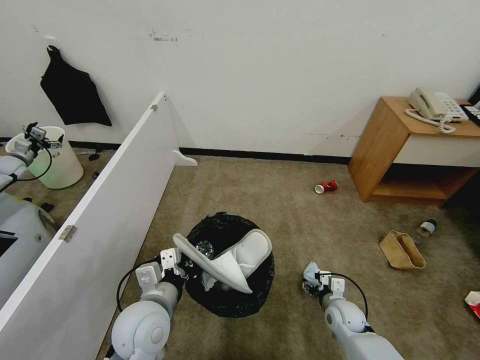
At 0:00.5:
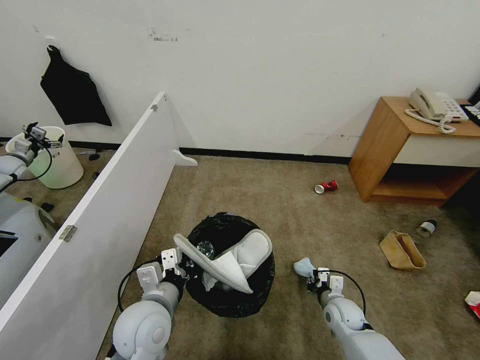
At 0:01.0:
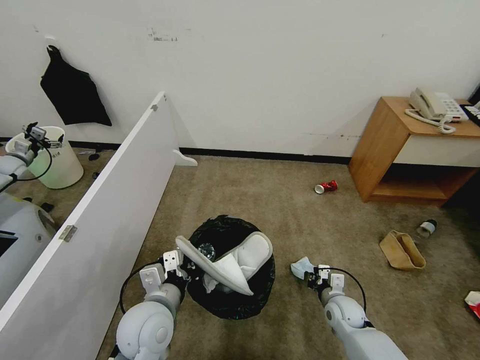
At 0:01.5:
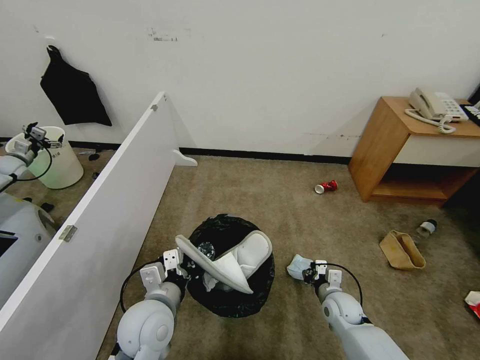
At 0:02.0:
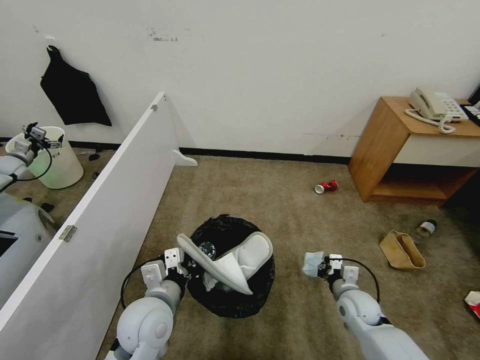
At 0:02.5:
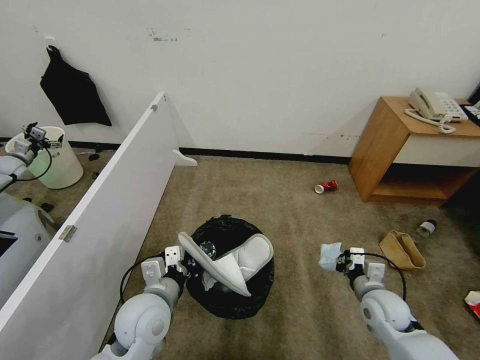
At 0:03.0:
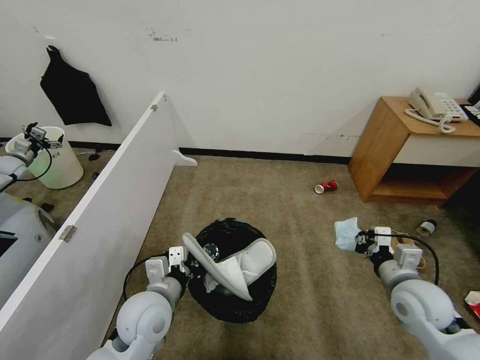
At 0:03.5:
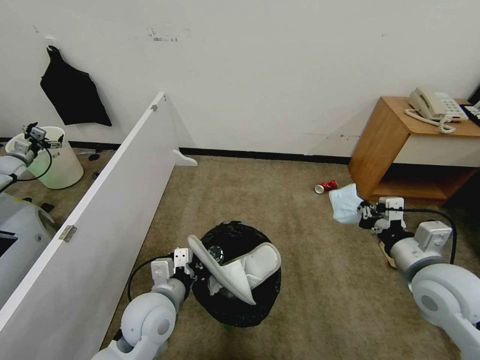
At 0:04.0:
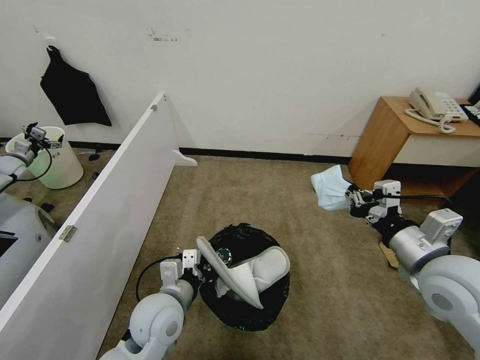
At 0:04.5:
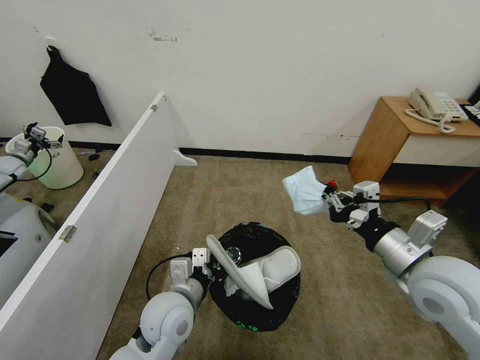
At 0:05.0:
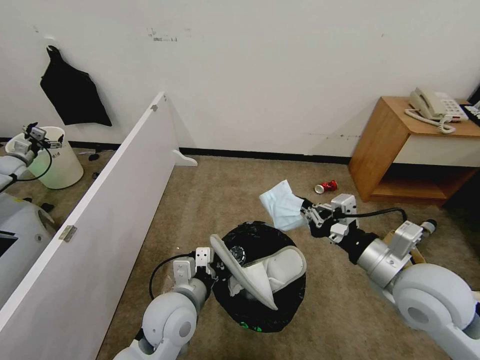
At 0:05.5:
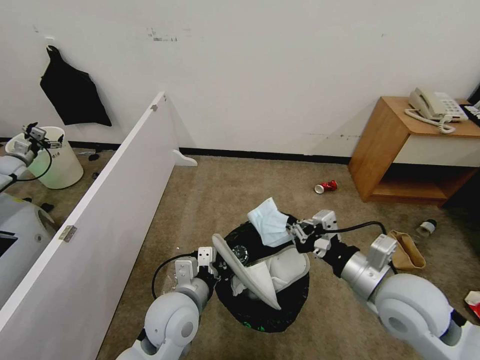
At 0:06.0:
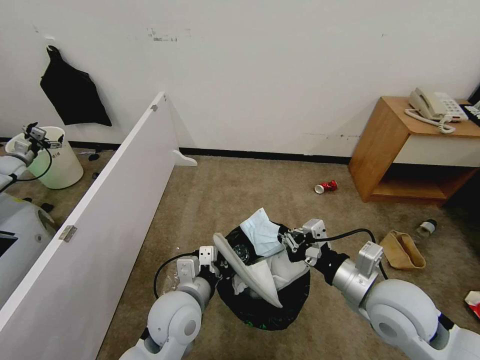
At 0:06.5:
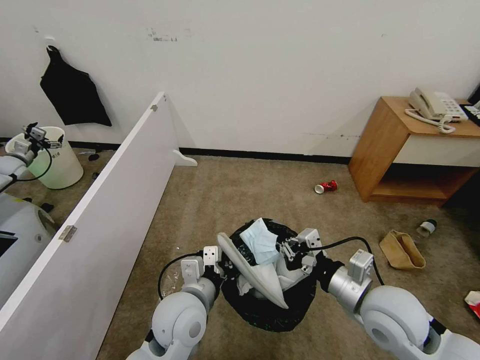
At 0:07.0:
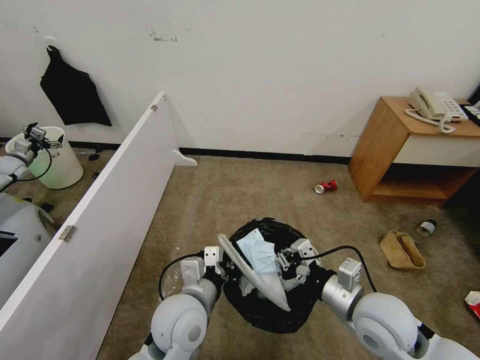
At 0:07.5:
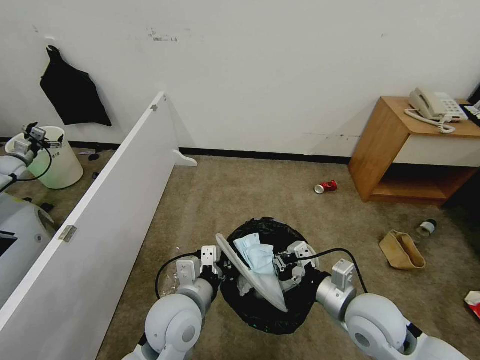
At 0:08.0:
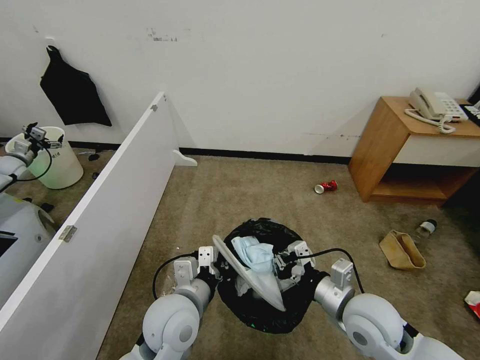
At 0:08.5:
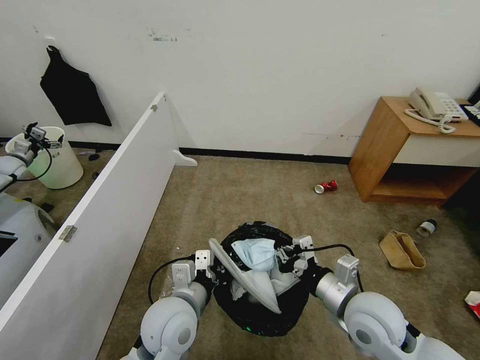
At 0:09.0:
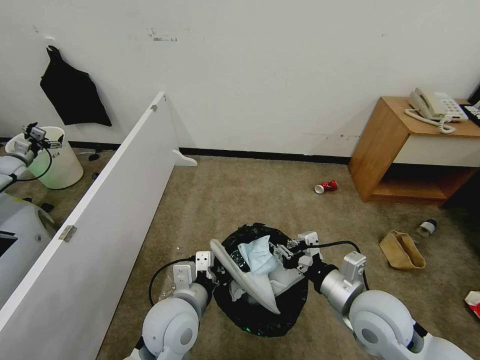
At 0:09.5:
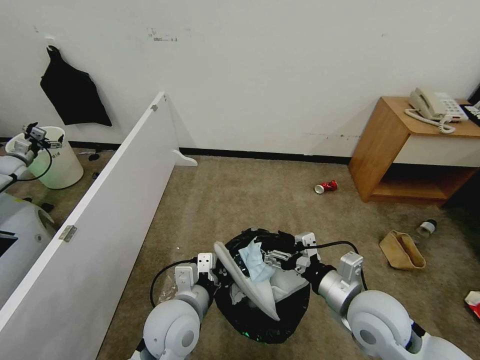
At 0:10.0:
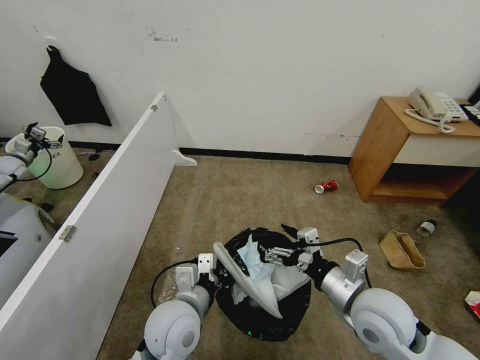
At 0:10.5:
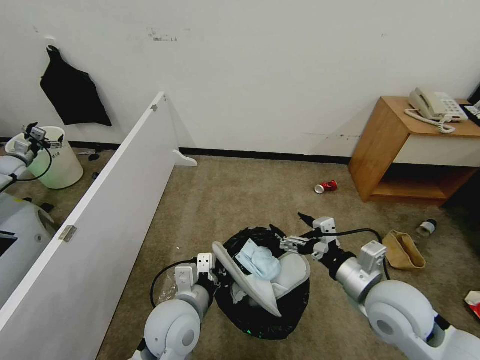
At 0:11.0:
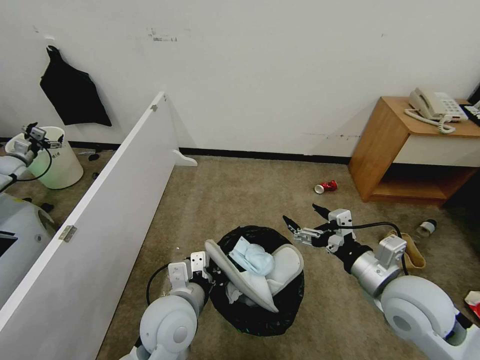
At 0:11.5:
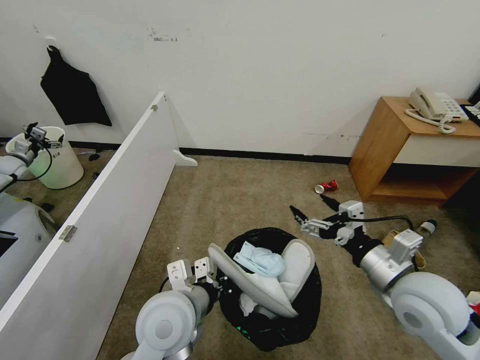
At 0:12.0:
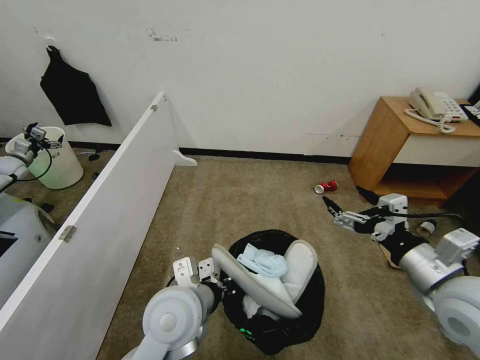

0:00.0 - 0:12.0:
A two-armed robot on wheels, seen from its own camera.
Task of the whole recording: Pick up the trash bin, then pick up the garbage from the floor and place it into the trash bin.
0:00.0 - 0:02.0: The right gripper ends up some 5 cm from where it was, and closes.
0:02.0 - 0:04.0: The right gripper goes roughly 30 cm upward.
0:04.0 - 0:06.0: The right gripper is displaced to the left and downward by about 10 cm.
0:06.0 - 0:08.0: The right gripper moves downward, roughly 5 cm.
0:08.0 - 0:10.0: The right gripper opens up.
0:10.0 - 0:12.0: The right gripper moves to the right and upward, approximately 15 cm, while the left gripper shifts some 5 cm upward.

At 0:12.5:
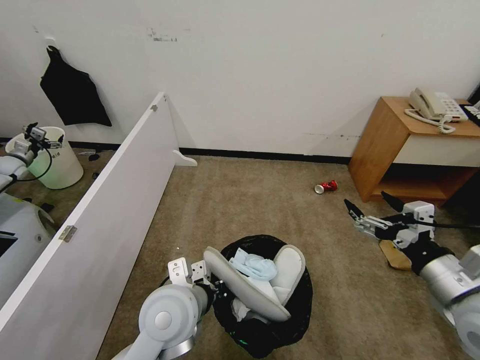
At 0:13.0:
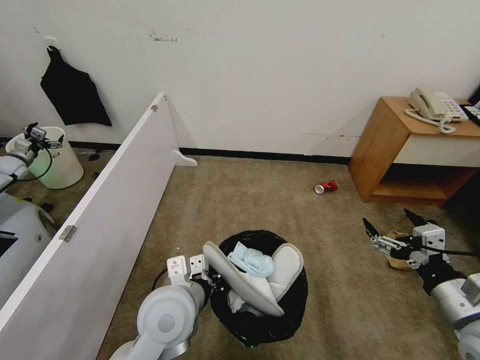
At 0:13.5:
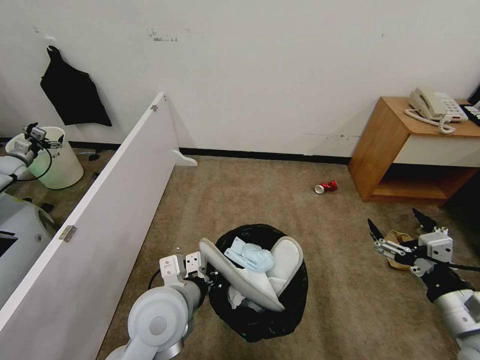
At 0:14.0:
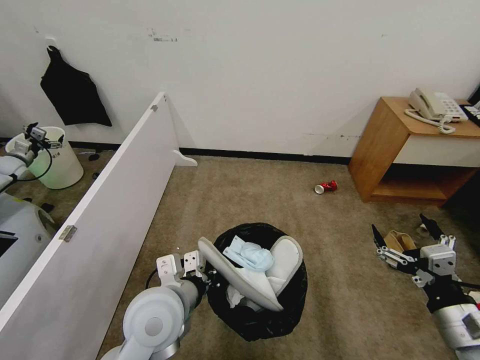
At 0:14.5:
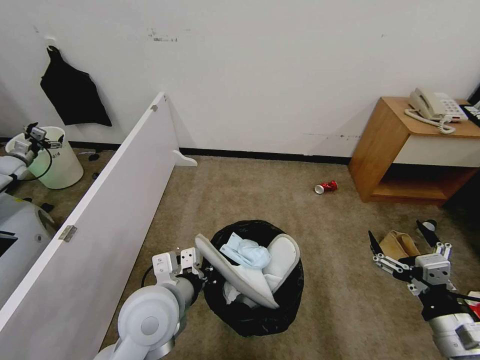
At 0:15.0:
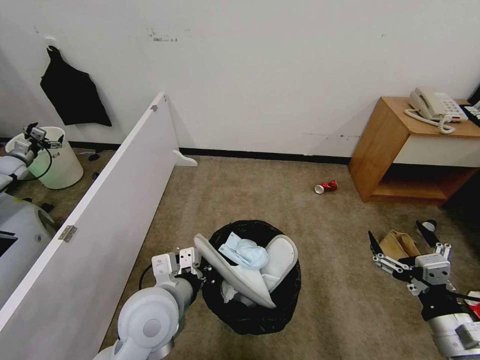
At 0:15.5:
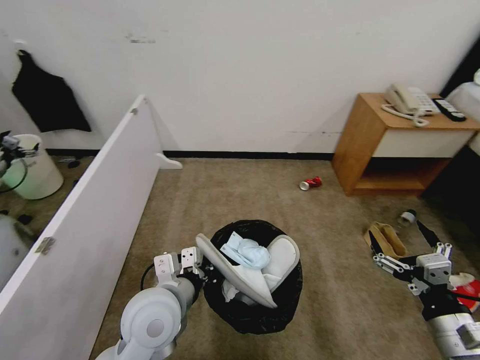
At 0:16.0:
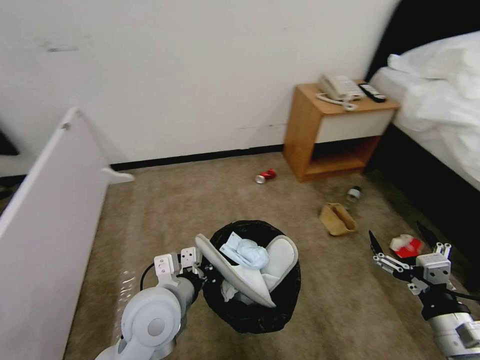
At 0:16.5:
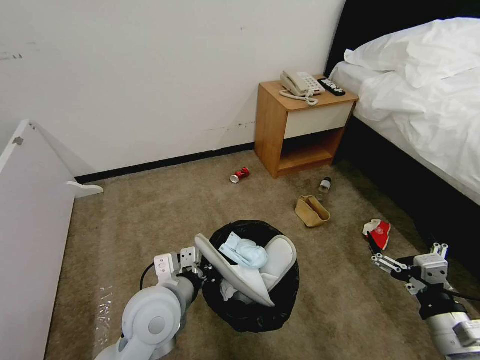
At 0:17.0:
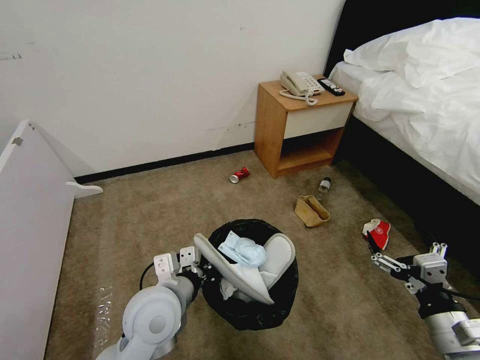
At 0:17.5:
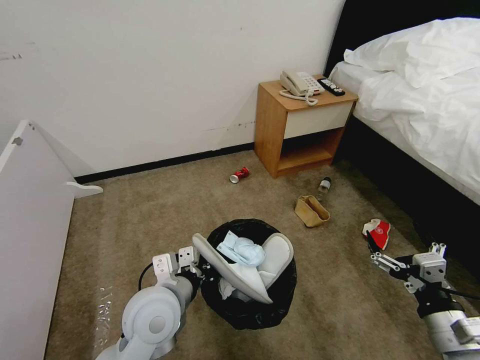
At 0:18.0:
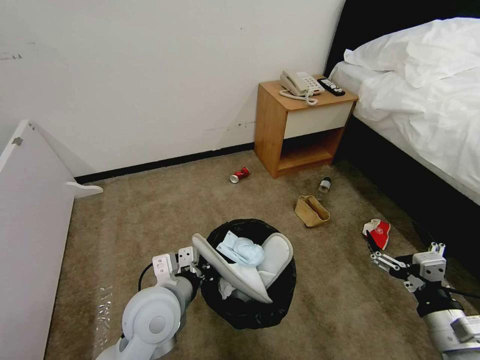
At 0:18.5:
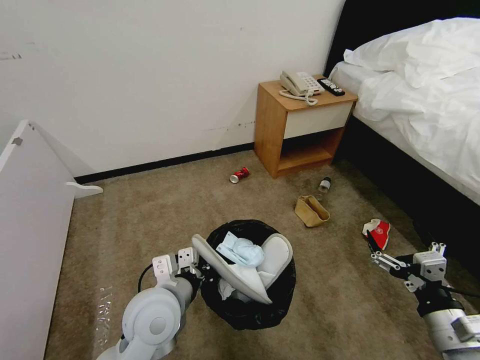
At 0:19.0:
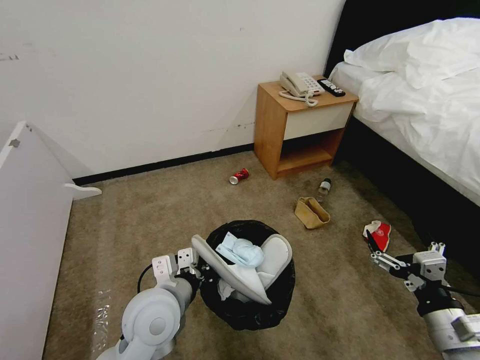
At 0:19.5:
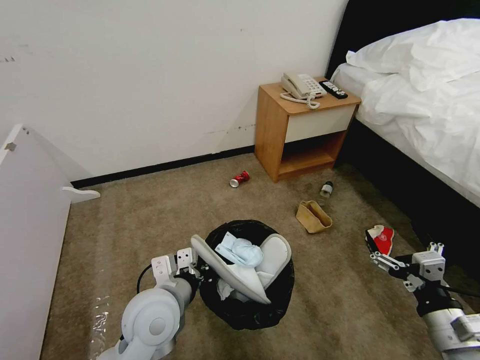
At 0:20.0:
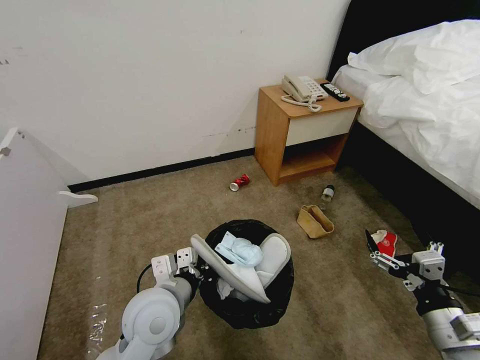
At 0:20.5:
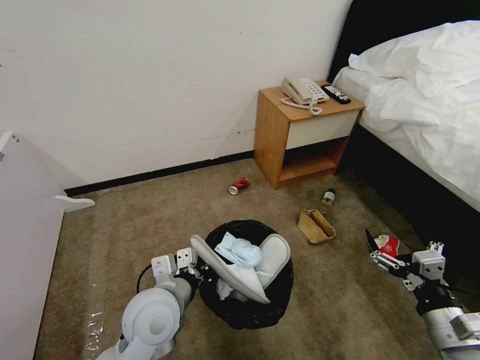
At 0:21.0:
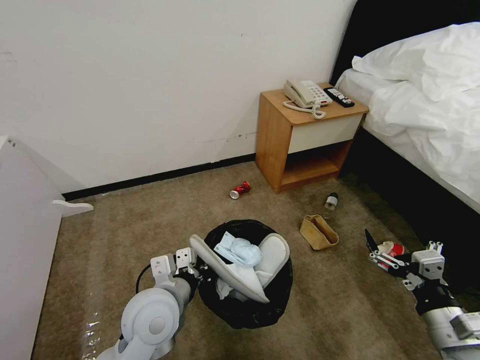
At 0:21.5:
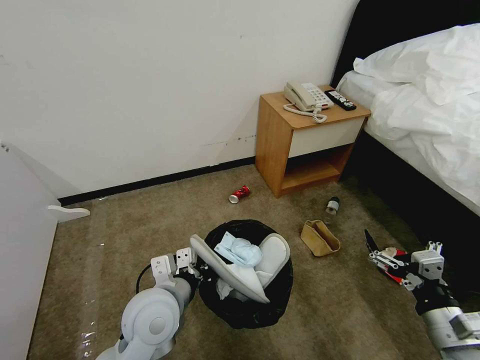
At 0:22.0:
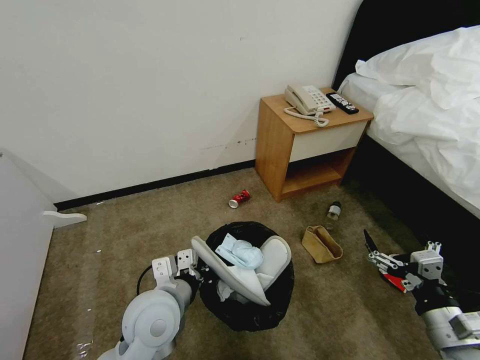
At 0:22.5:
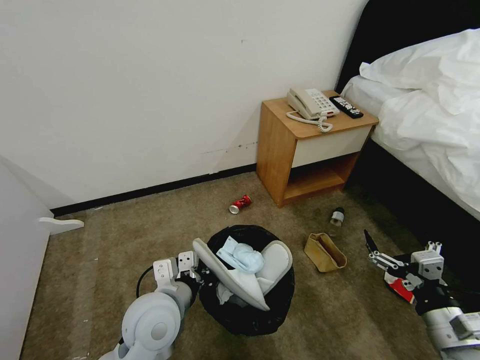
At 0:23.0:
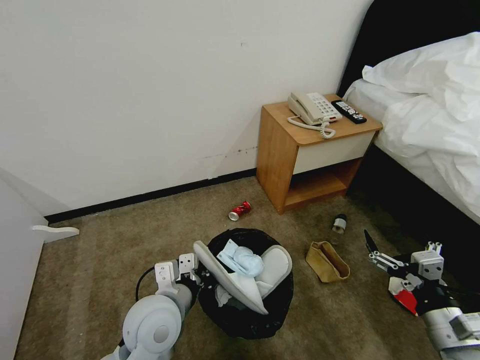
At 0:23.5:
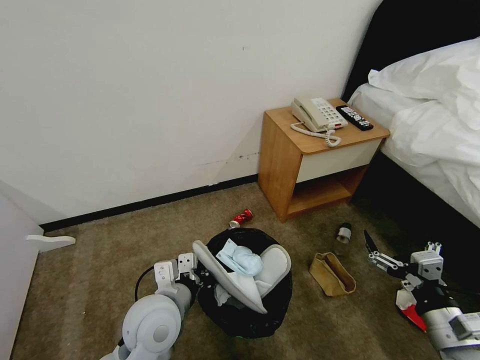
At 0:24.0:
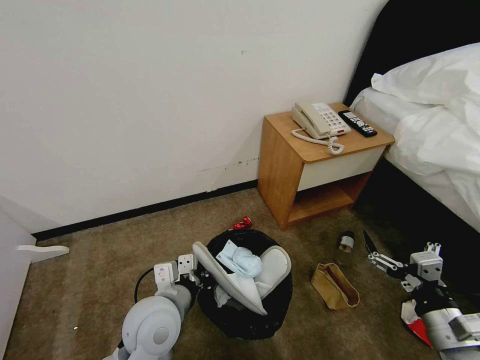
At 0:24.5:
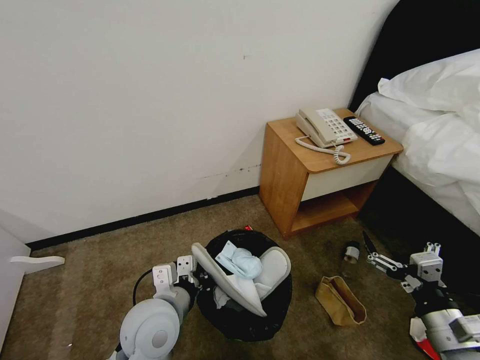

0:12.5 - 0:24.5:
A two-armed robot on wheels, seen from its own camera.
Task of the whole recording: Pick up the trash bin, then pick up the garbage from the floor and place it into the trash bin.
0:12.5 - 0:14.5: The right gripper shifts some 10 cm downward and backward.
0:16.5 - 0:20.5: Both grippers stay about where they are.

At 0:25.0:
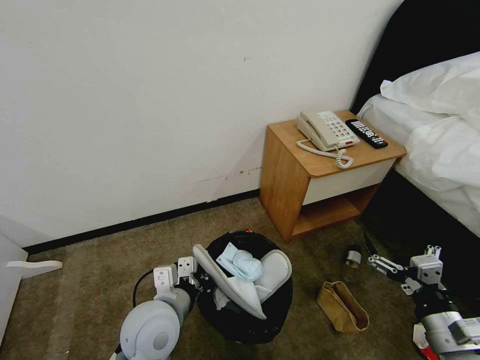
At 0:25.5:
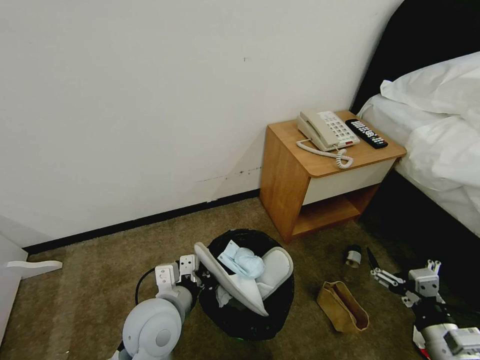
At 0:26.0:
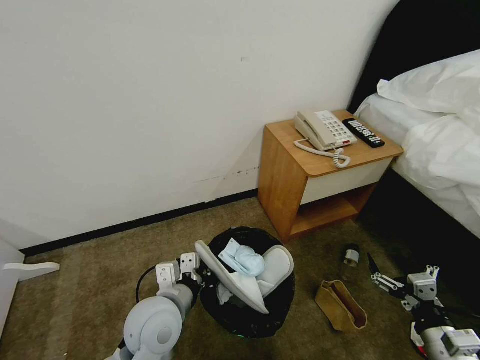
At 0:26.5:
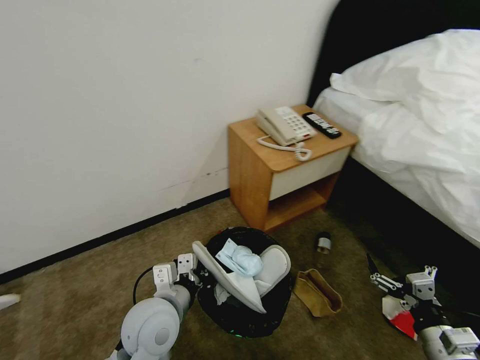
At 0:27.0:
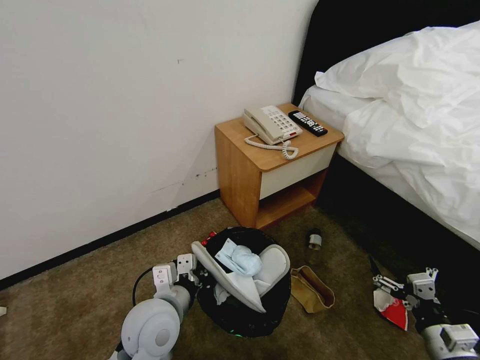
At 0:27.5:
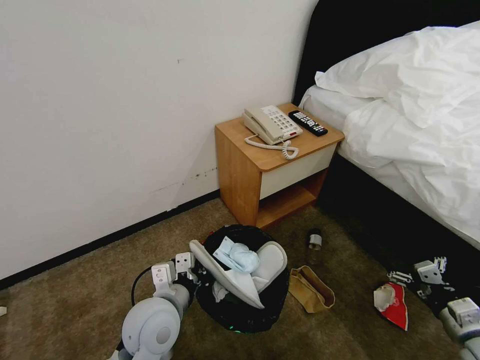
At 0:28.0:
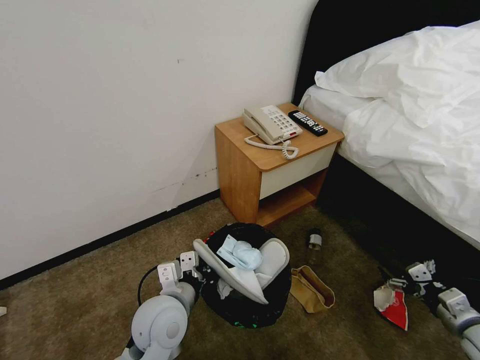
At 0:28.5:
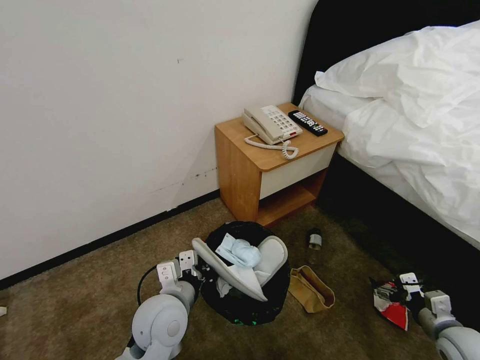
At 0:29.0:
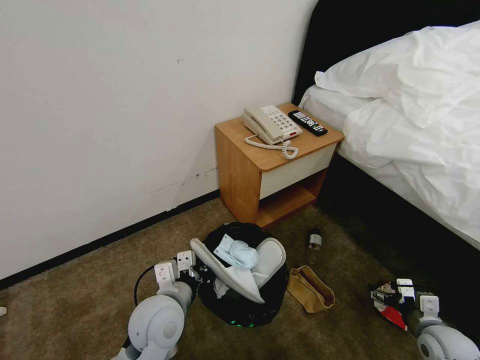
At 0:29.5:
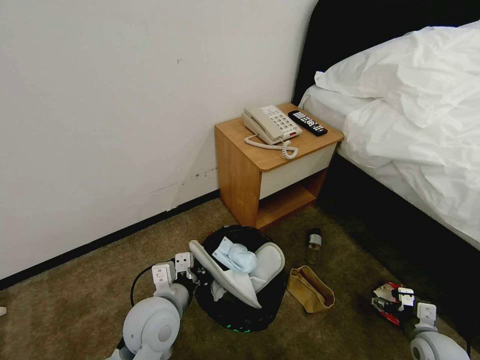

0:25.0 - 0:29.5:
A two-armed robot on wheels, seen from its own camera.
Task of the whole recording: Pick up the trash bin, then pick up the garbage from the floor and place it into the trash bin.
0:25.0 - 0:27.0: The right gripper goes approximately 5 cm downward.
0:27.0 - 0:29.5: The right gripper heads downward, forward and to the right, covering some 15 cm.
